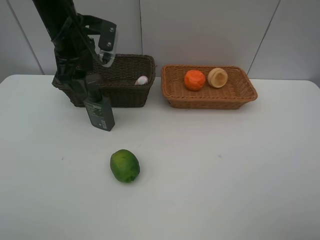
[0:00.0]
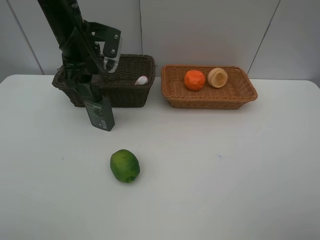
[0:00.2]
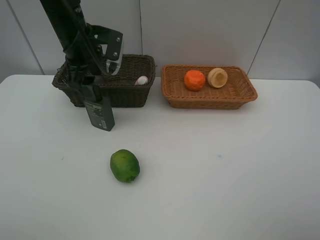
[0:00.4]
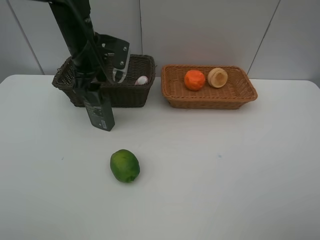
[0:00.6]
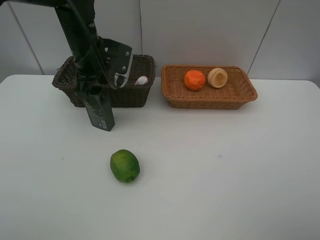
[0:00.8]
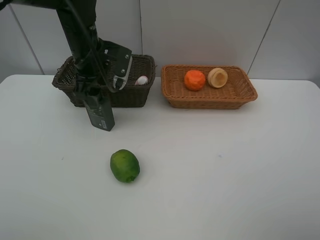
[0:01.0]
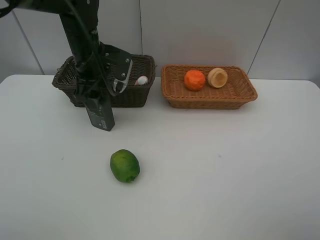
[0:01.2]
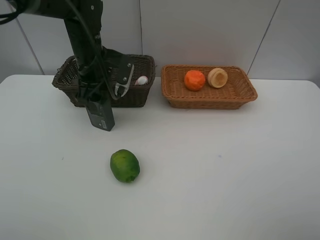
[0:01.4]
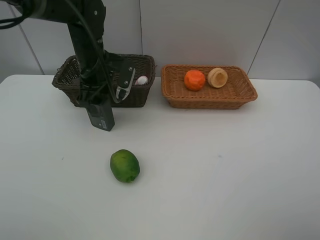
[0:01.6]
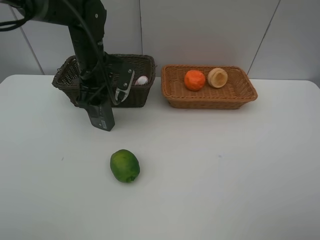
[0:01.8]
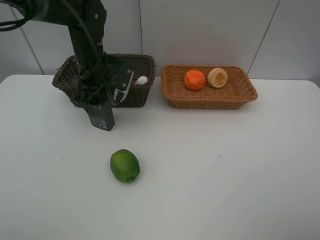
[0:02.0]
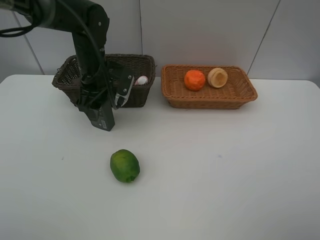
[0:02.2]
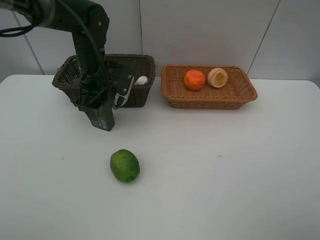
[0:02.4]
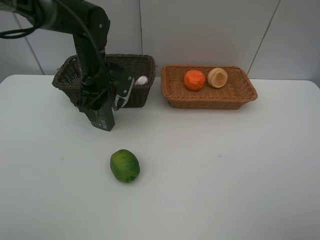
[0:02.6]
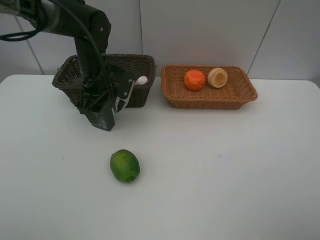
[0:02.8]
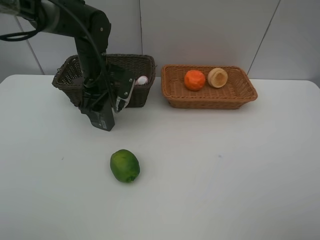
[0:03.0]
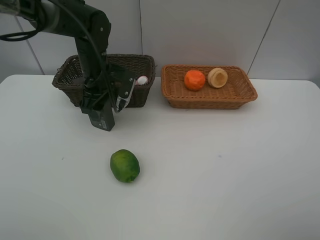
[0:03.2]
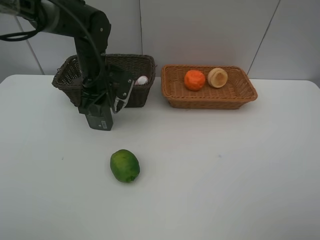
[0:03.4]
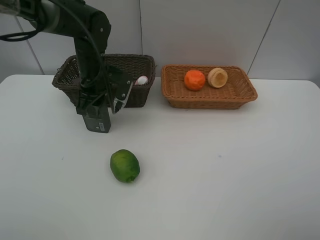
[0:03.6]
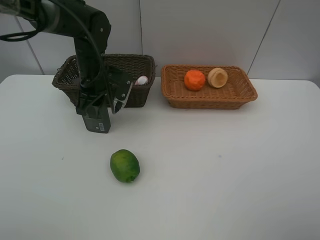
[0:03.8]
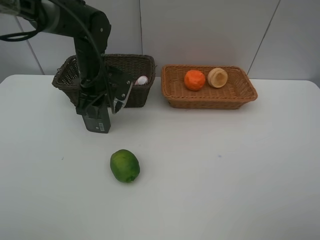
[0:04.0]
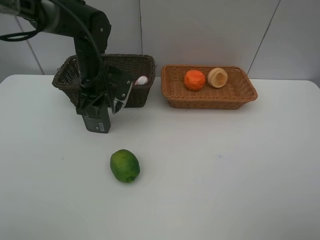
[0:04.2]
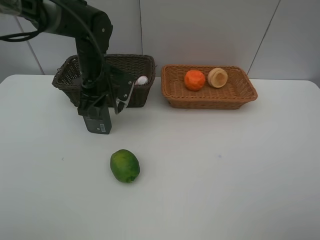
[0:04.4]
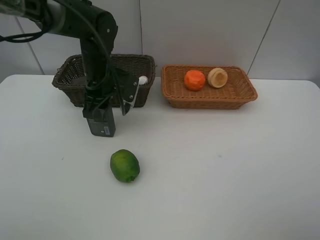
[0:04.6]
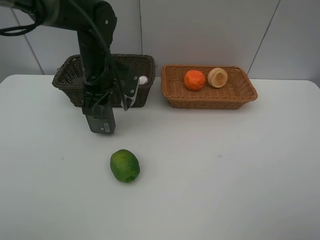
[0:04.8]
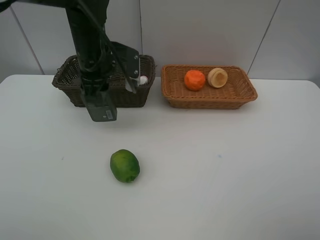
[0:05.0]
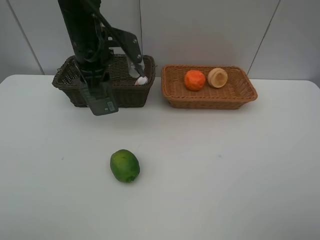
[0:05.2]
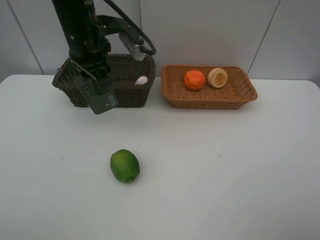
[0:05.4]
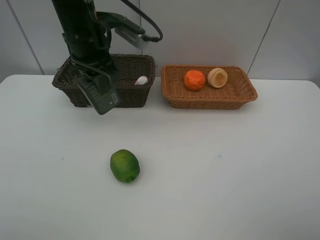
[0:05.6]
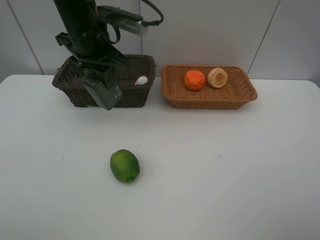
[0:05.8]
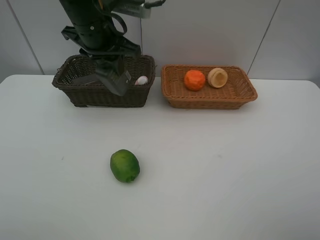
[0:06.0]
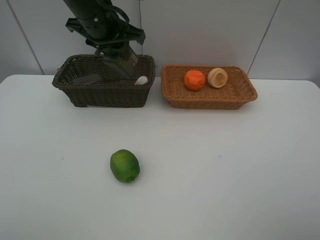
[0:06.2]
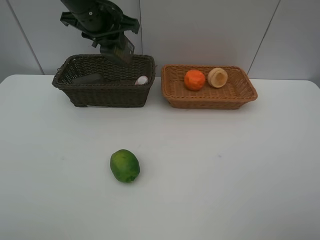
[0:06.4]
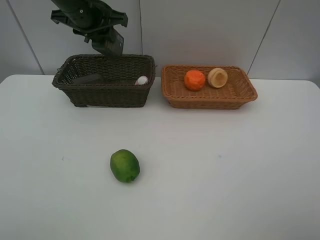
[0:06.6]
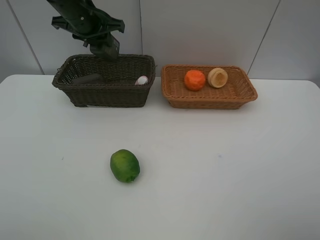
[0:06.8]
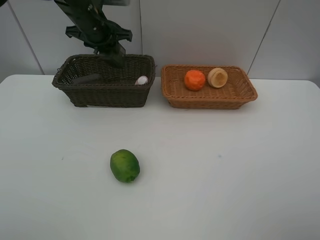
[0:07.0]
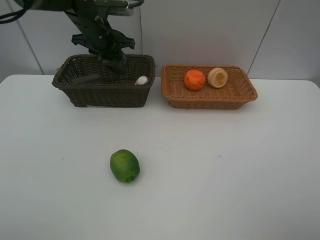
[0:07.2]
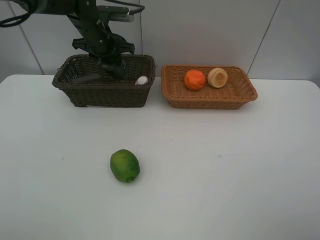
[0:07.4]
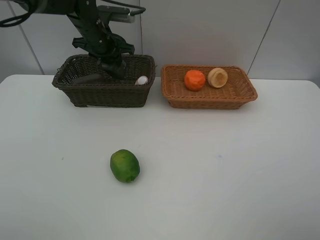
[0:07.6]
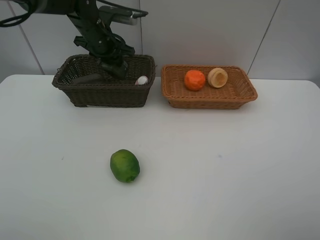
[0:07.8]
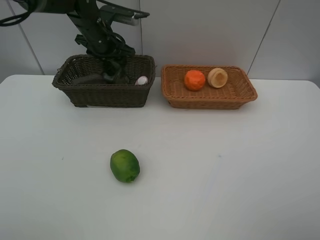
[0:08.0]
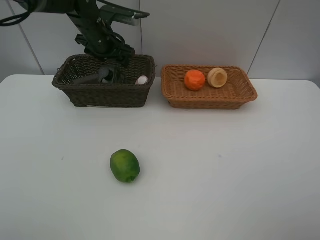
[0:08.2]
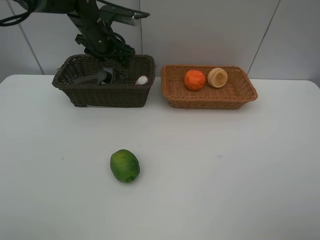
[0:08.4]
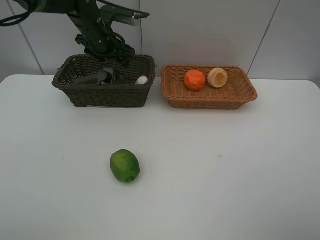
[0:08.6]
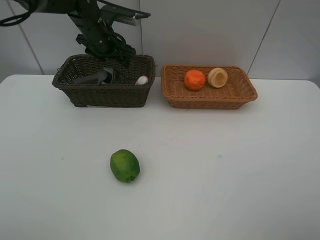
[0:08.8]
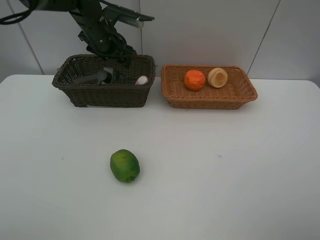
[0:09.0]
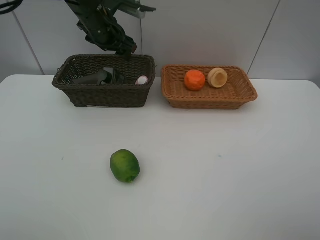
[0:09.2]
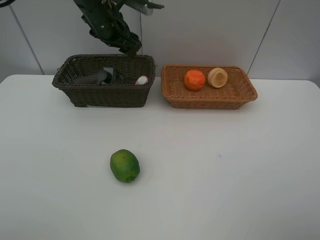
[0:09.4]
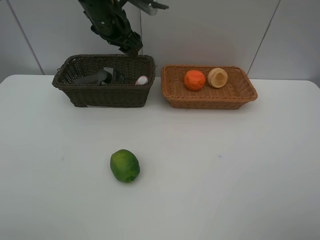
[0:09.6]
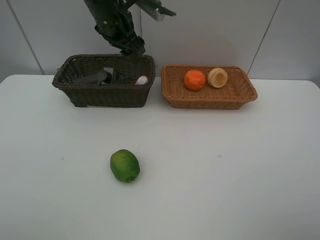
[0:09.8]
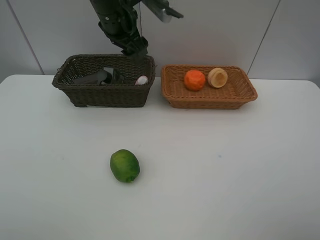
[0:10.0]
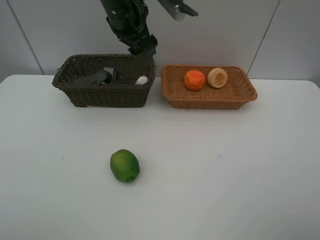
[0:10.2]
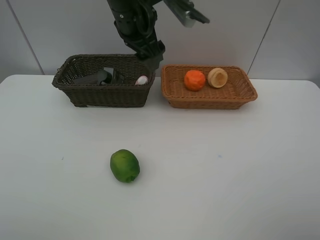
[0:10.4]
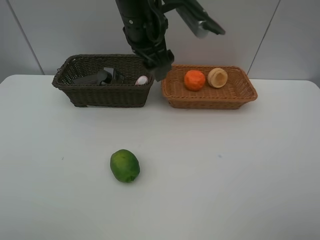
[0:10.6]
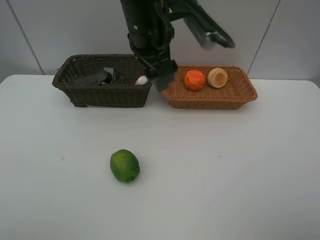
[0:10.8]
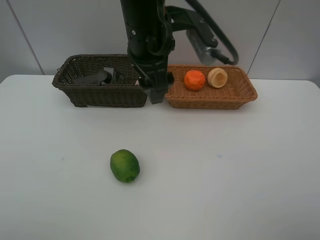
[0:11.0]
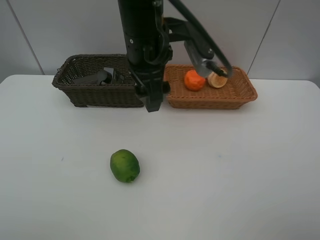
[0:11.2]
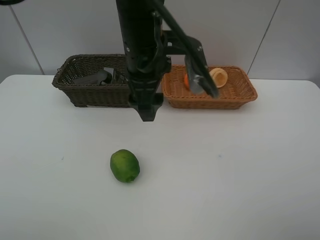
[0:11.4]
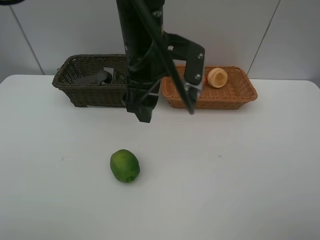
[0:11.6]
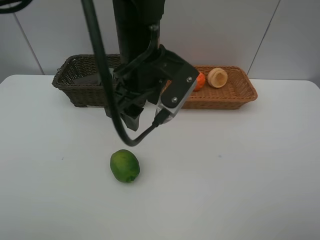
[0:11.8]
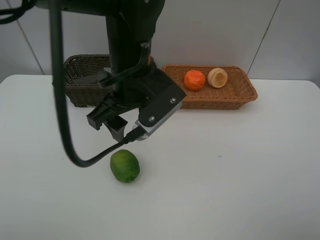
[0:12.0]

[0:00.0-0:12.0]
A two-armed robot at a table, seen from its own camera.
Task of the whole recording: place multiple objects separately in different baskets.
0:00.0 to 0:01.6: The left gripper moves downward, about 5 cm.
0:01.6 to 0:03.0: The grippers move only a little.
0:03.0 to 0:04.4: The left gripper closes up.
0:04.4 to 0:06.0: The left gripper moves upward, roughly 10 cm.
0:06.0 to 0:07.6: The left gripper moves forward and downward, some 15 cm.
0:07.6 to 0:09.0: The left gripper opens its fingers.
0:09.0 to 0:10.4: The left gripper goes some 15 cm backward, to the right and upward.
0:10.4 to 0:12.0: The left gripper moves backward and downward, some 10 cm.

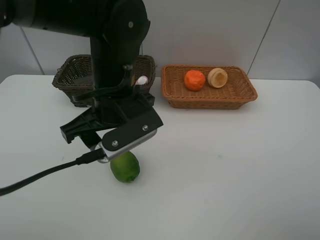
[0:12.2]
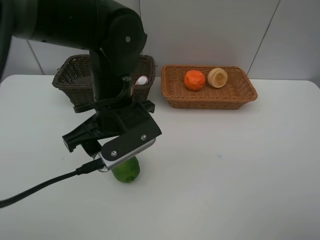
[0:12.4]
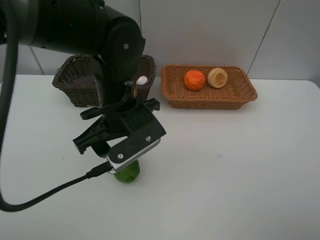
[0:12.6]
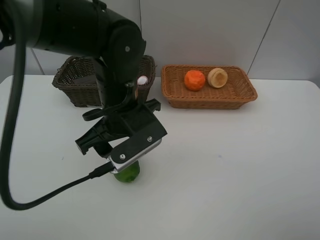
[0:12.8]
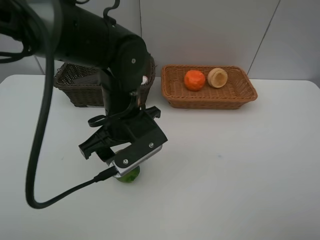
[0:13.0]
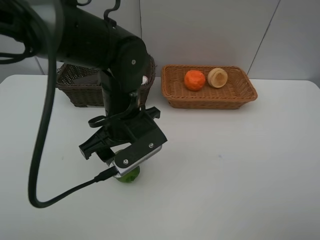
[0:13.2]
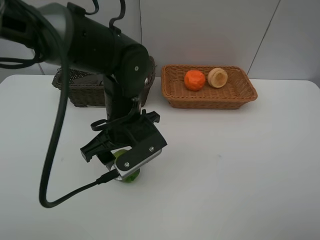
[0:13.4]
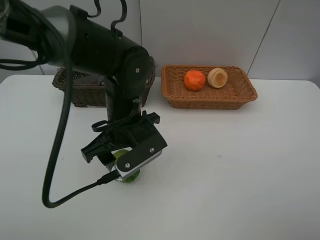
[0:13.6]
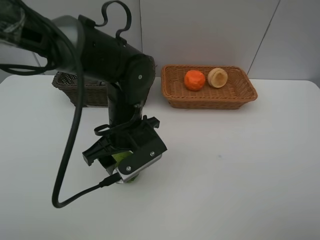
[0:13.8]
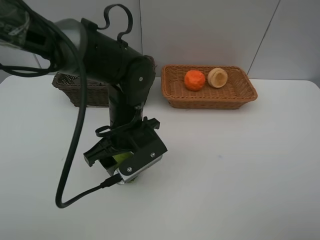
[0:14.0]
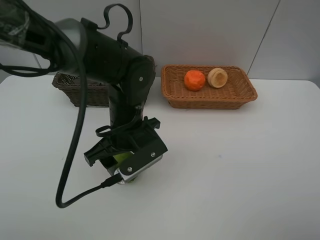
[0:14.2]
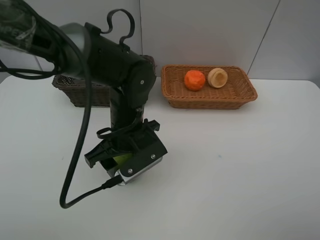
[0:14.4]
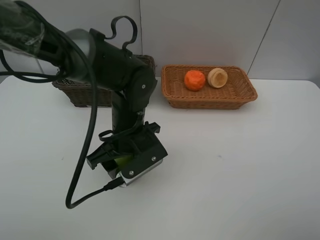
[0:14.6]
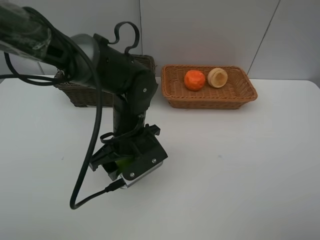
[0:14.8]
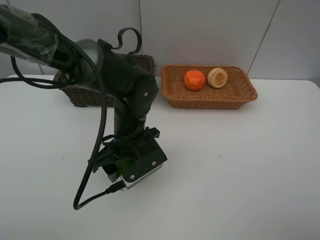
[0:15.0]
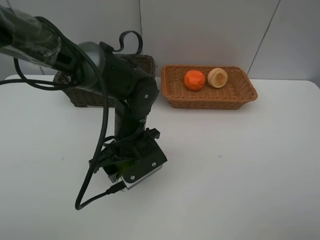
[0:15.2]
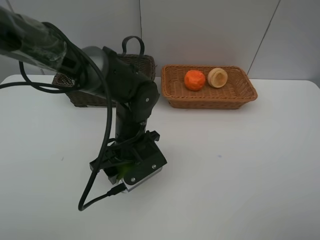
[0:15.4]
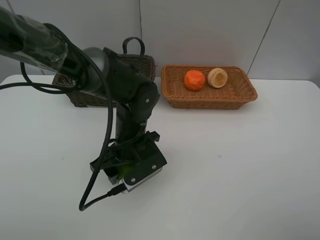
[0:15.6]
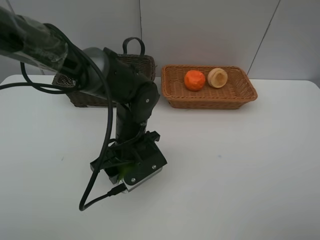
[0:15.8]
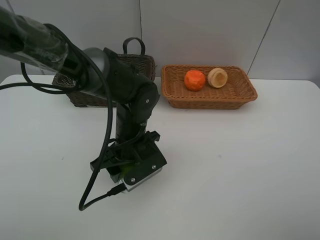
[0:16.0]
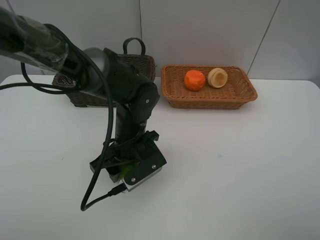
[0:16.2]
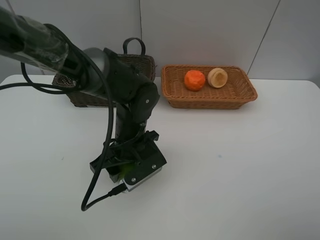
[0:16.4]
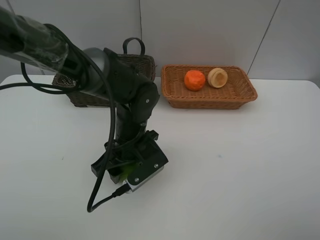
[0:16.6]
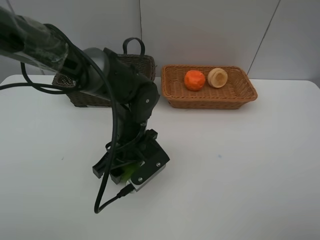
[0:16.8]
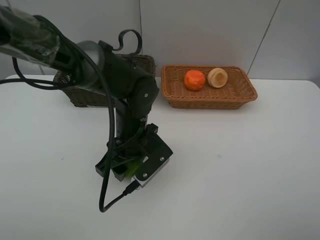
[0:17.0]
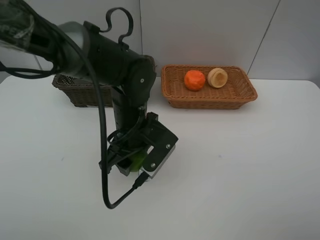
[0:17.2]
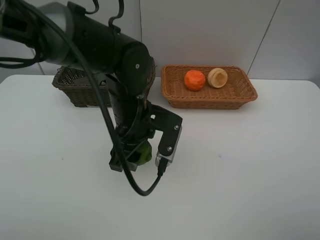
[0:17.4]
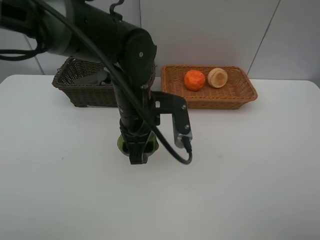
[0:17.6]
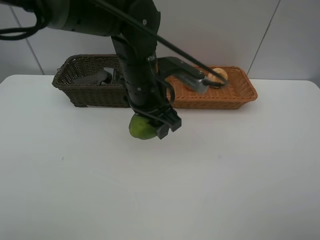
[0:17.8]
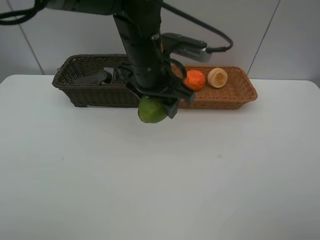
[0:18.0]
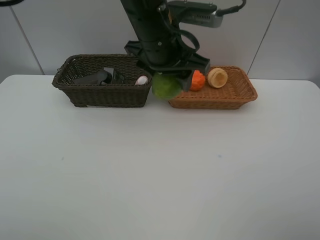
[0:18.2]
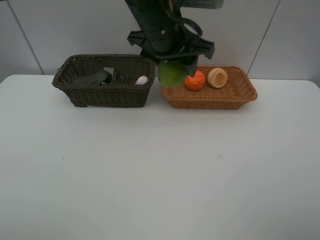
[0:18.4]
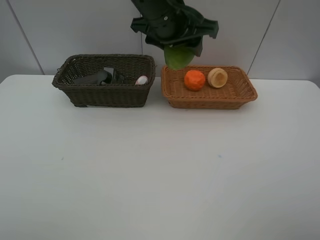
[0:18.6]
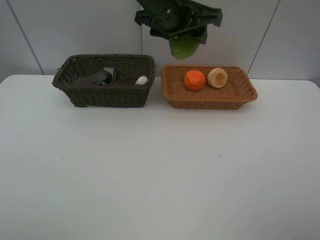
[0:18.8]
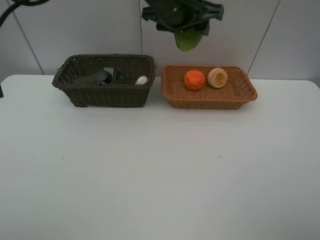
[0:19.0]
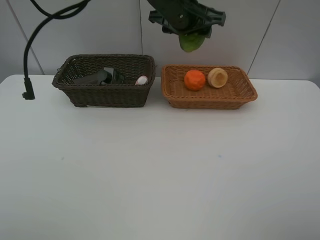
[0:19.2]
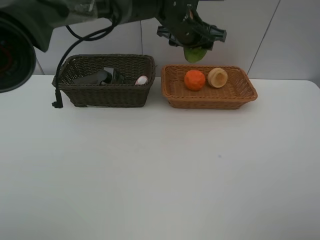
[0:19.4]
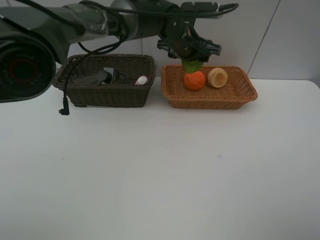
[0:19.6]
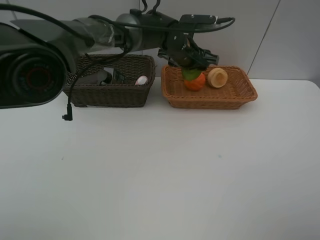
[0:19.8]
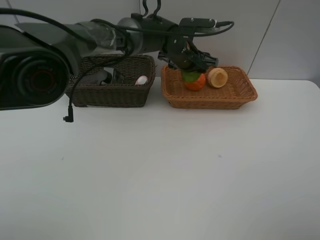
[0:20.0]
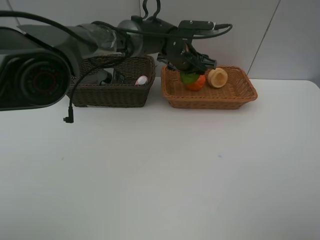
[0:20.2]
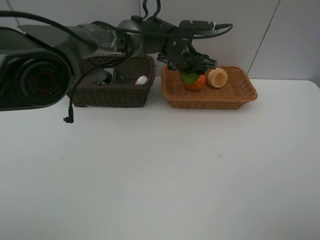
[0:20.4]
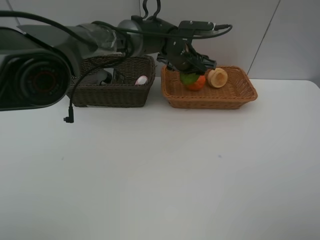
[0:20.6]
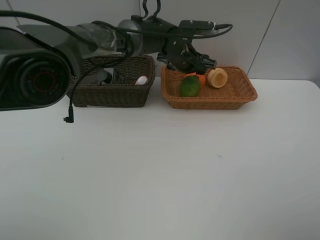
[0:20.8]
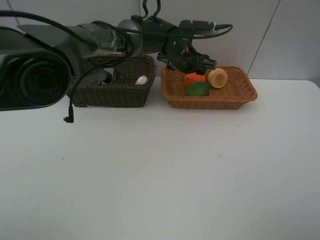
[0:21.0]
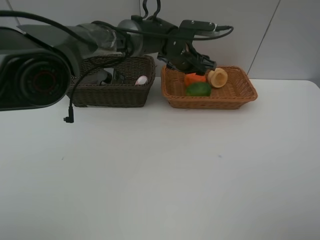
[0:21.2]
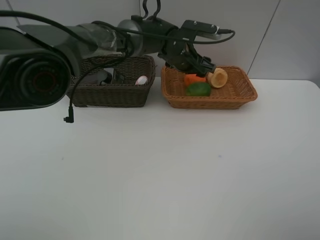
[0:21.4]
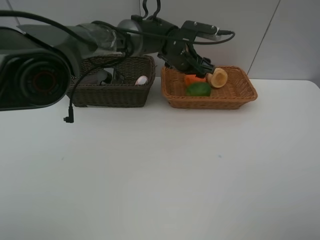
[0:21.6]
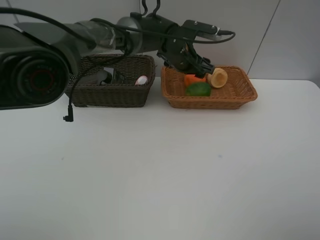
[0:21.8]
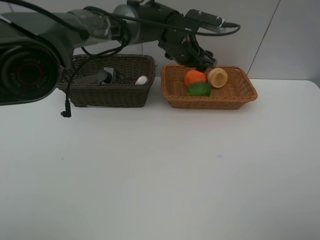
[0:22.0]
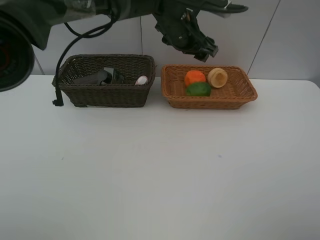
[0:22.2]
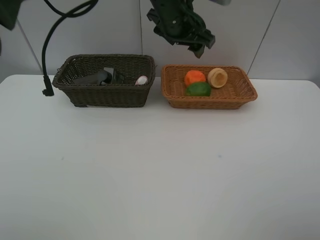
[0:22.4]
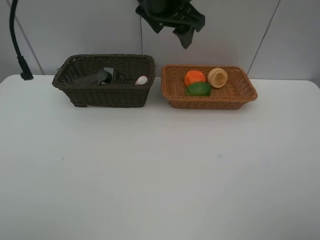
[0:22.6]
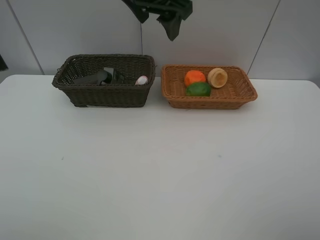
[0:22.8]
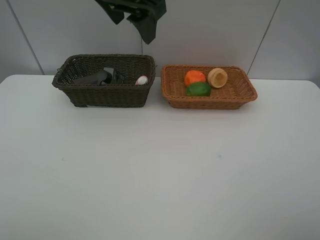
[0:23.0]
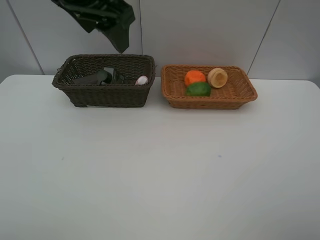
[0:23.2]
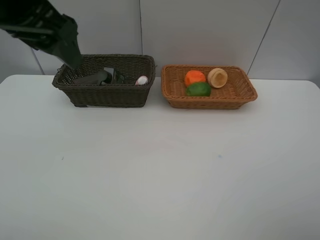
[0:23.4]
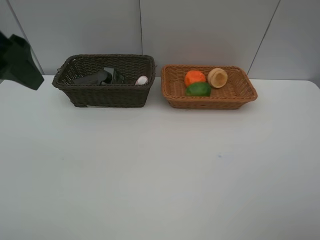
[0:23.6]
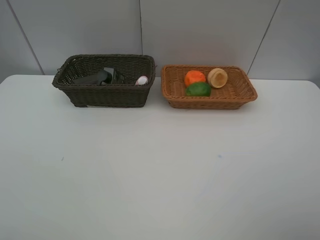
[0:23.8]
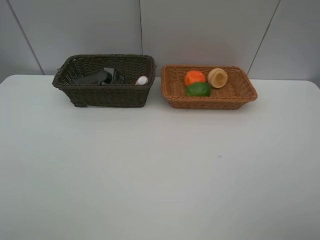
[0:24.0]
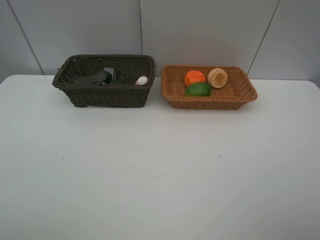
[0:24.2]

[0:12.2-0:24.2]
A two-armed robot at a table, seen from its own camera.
Task of the whole recording: place multiple objects separately in different baskets.
0:12.2 to 0:13.8: The left gripper is displaced downward by approximately 5 cm.
0:13.8 to 0:15.2: The grippers make only small movements.
0:15.2 to 0:16.6: Both grippers stay about where they are.
0:16.6 to 0:18.2: The left gripper shifts roughly 20 cm upward.
0:18.2 to 0:19.8: The left gripper travels forward and downward by some 15 cm.
0:19.8 to 0:21.2: The two grippers keep their place.
0:21.2 to 0:22.6: The left gripper is displaced upward and backward by roughly 20 cm.
0:22.6 to 0:24.2: The left gripper moves backward and to the left, some 50 cm.
